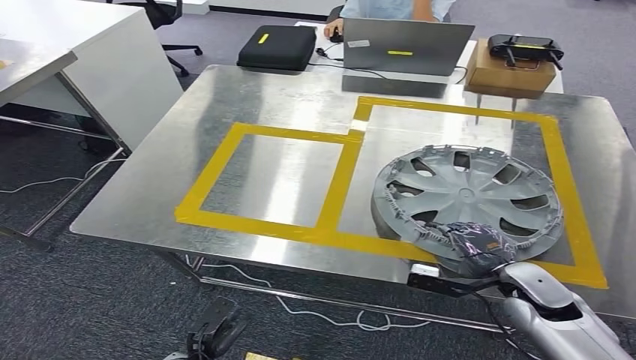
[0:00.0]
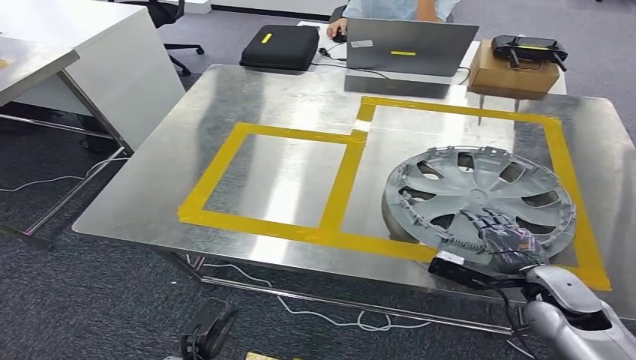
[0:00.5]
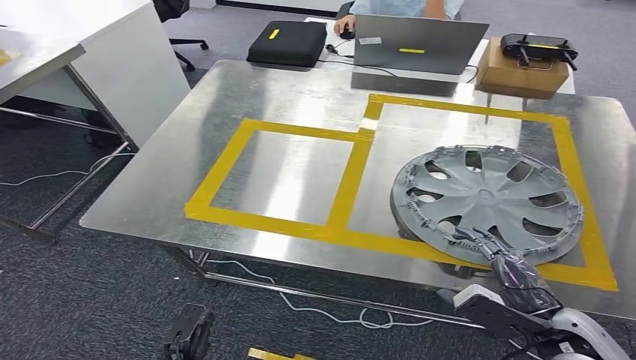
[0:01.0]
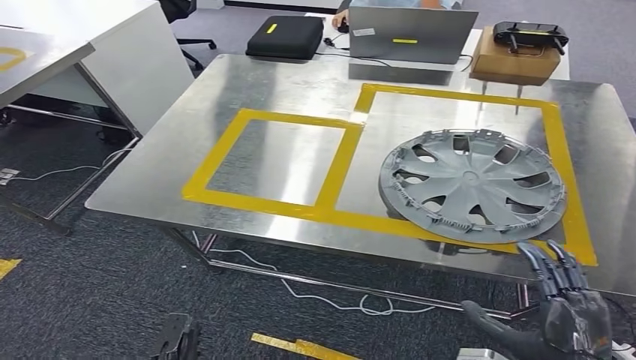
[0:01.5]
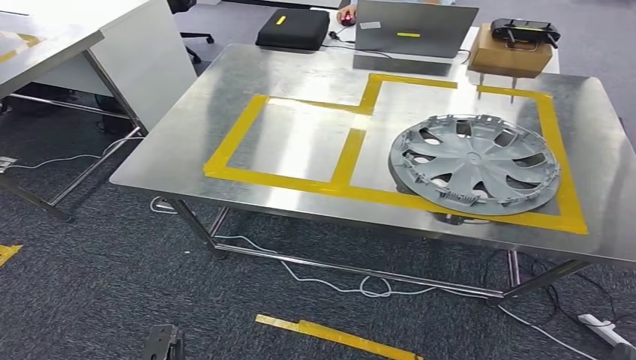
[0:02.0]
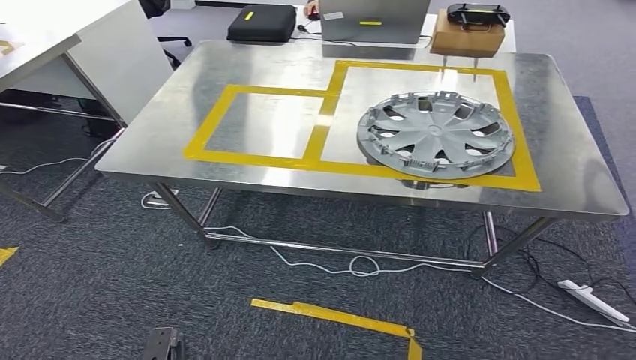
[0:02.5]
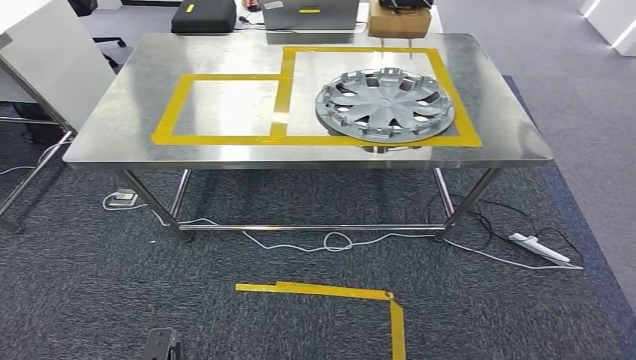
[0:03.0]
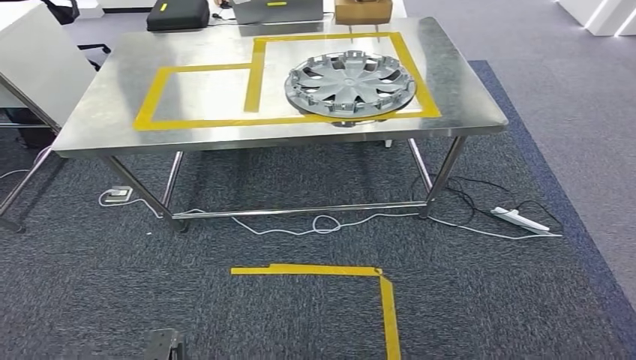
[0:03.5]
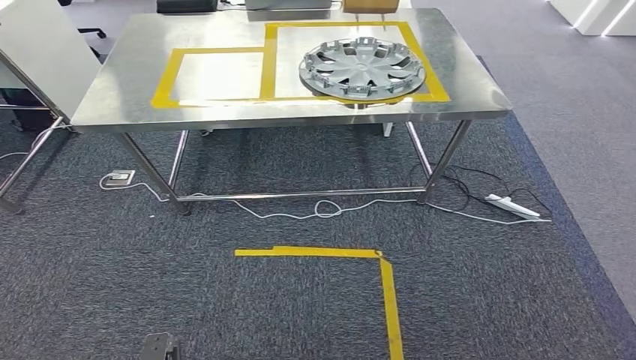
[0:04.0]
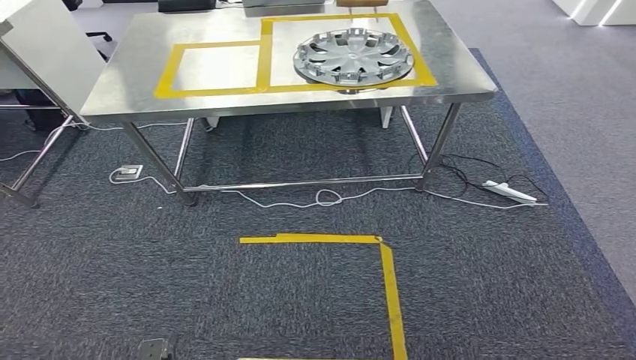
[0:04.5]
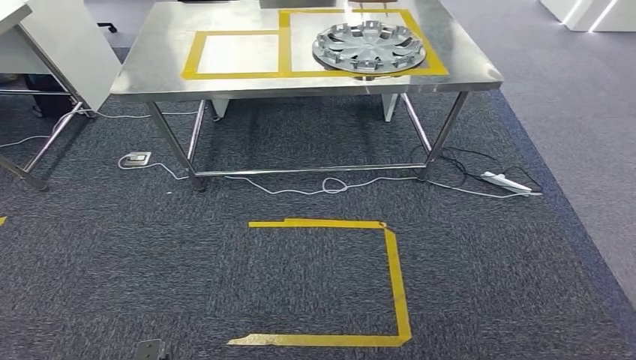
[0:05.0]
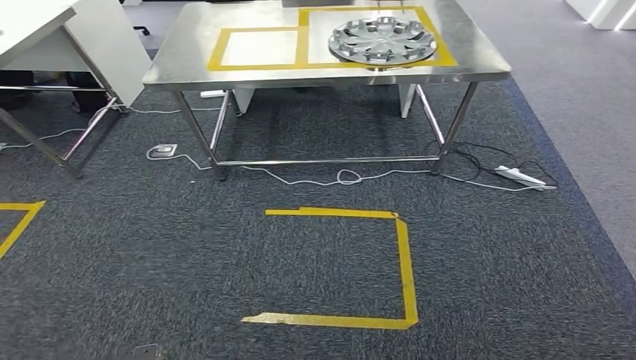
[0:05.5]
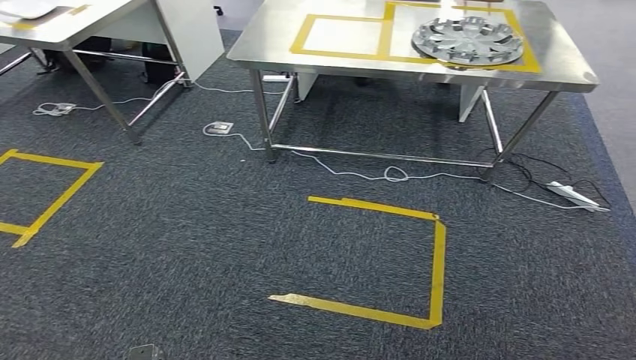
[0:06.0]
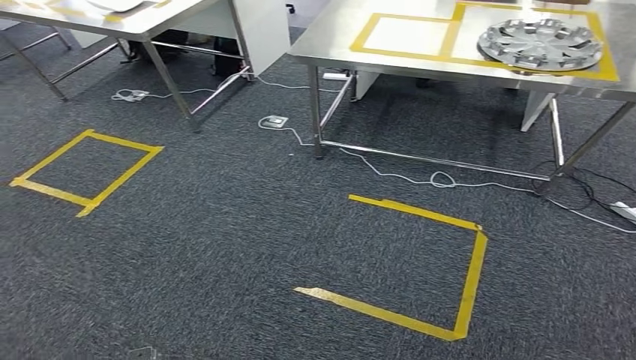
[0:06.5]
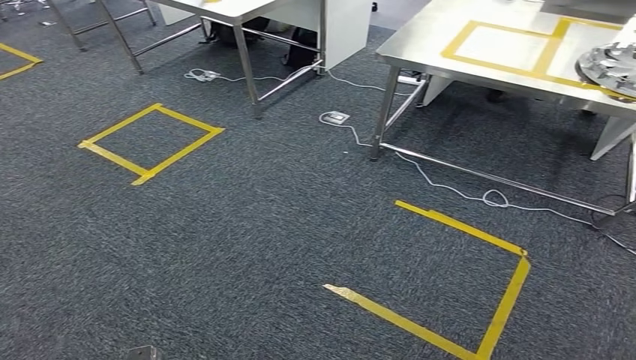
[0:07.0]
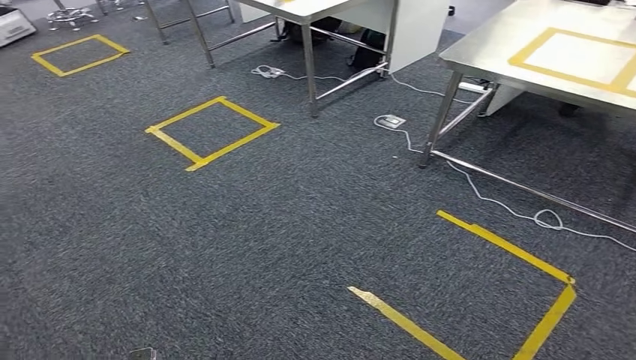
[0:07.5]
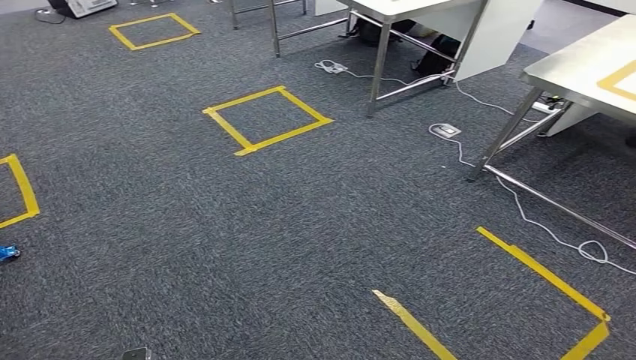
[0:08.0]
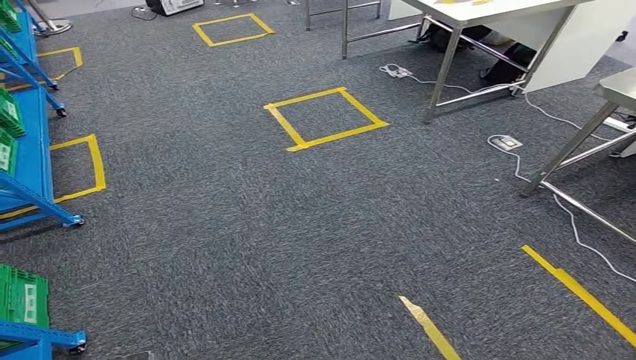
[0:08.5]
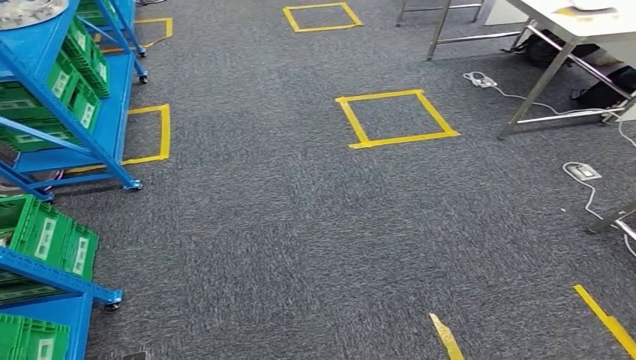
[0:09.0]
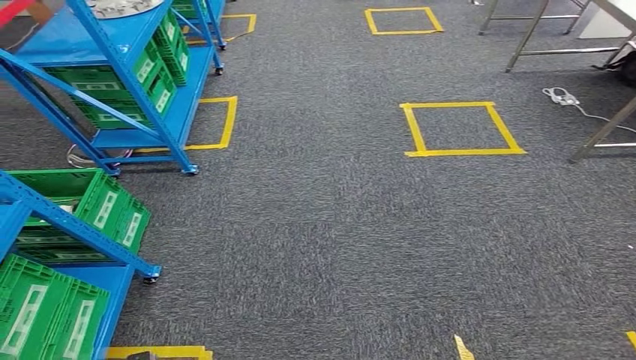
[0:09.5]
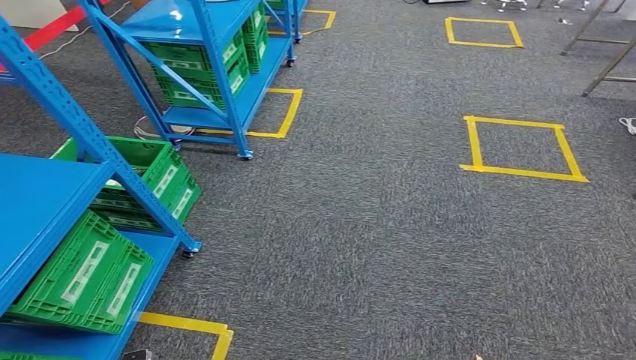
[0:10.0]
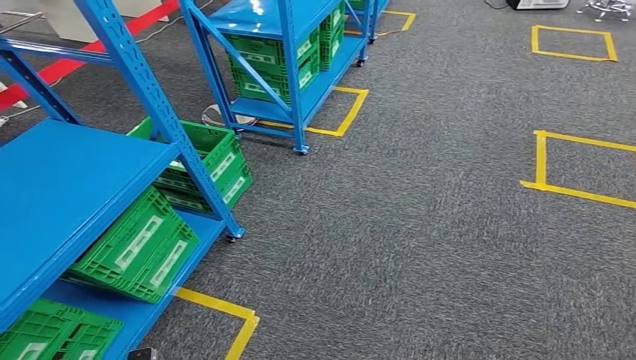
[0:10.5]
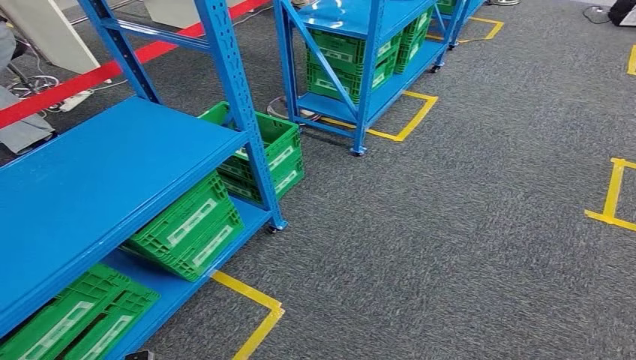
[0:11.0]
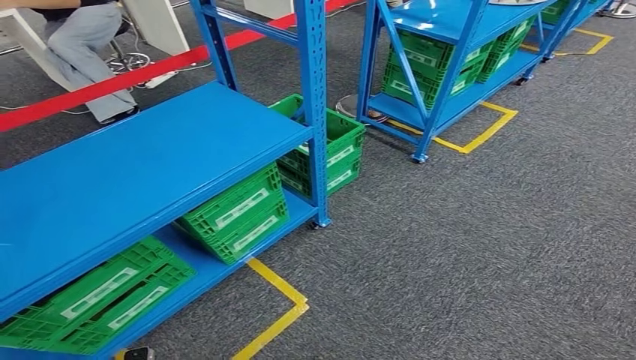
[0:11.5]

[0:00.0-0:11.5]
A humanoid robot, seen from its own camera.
Step, 0:00.0 to 0:04.0: Insert the small component into the corresponding slot on the workbench.

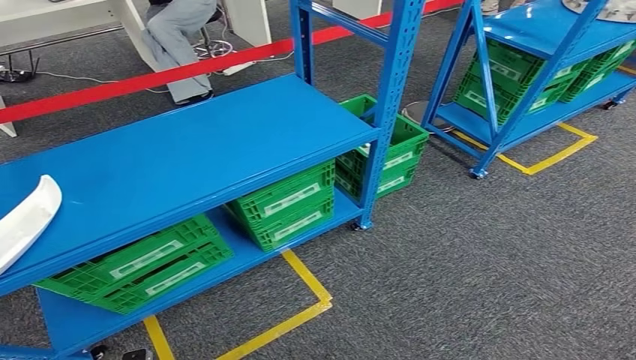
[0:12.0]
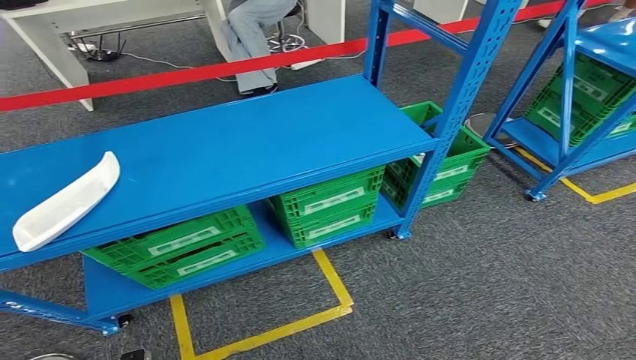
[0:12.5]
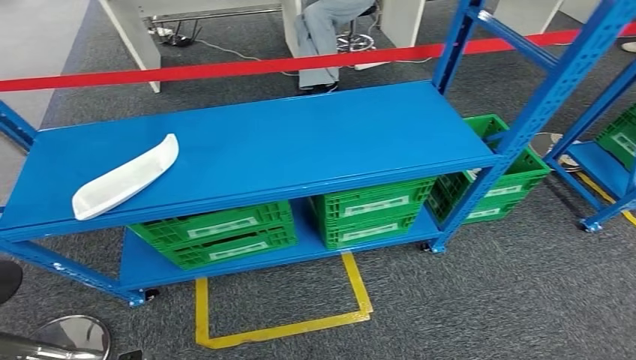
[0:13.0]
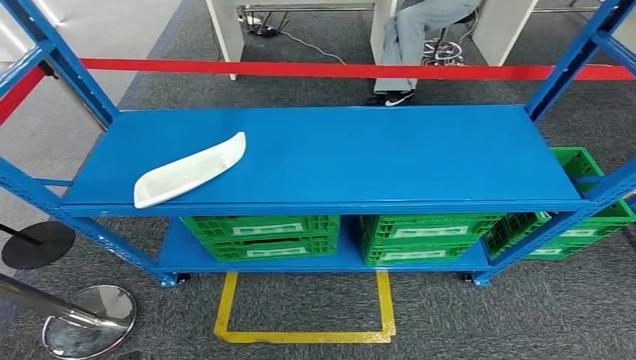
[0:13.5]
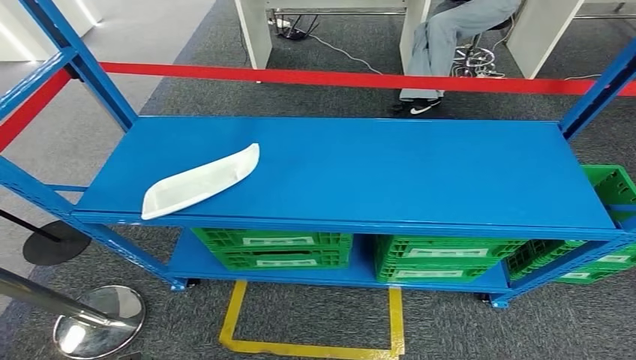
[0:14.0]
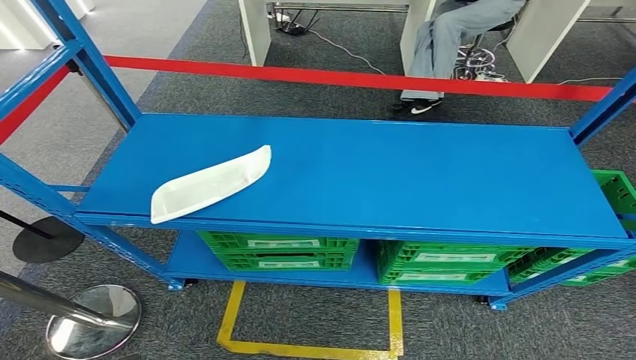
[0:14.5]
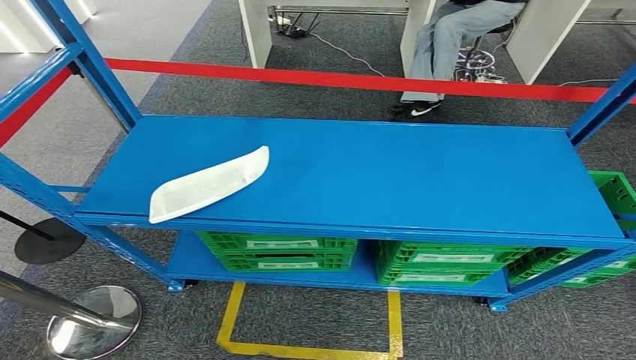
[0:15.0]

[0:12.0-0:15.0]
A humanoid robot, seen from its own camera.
Step, 0:12.0 to 0:15.0: Return to the initial position at the workbench.

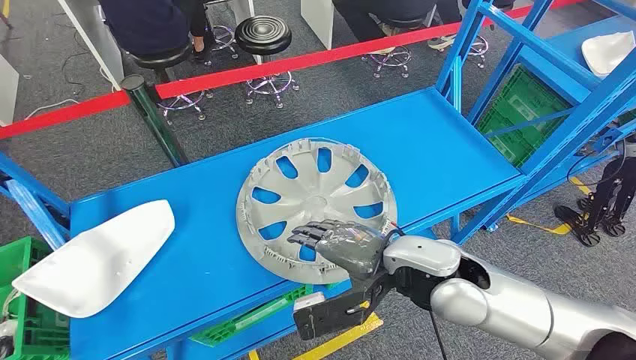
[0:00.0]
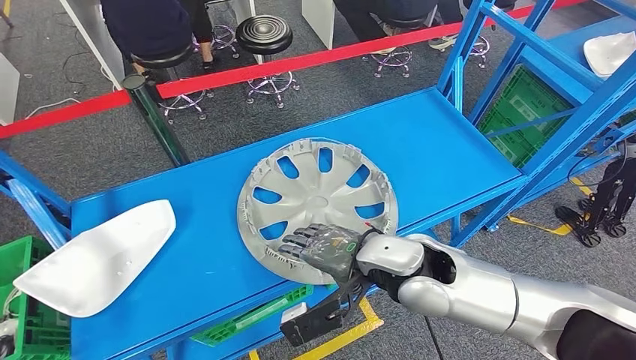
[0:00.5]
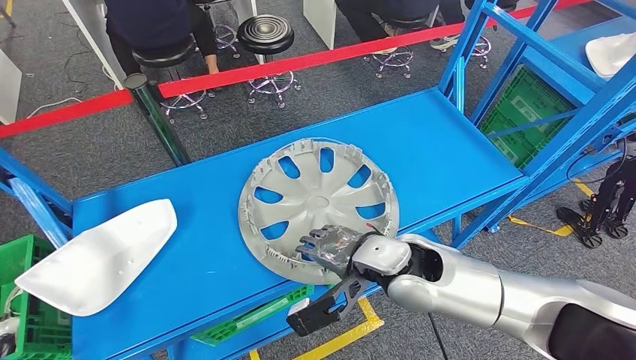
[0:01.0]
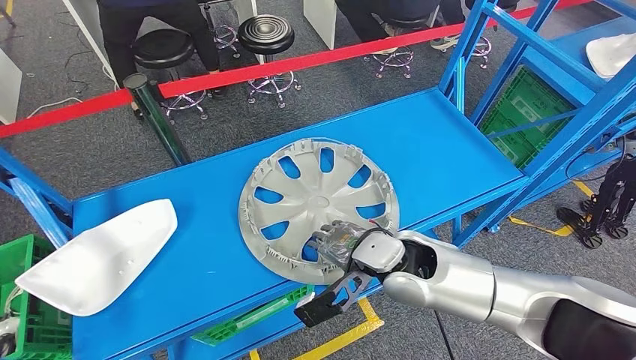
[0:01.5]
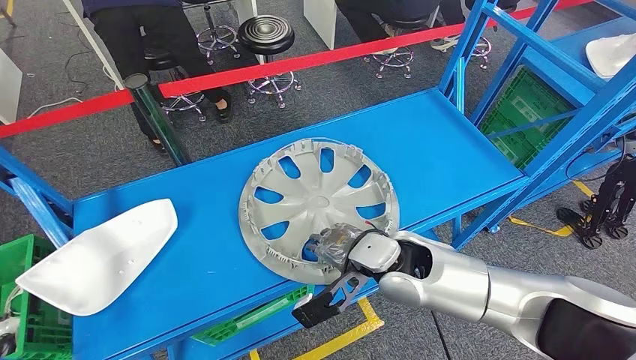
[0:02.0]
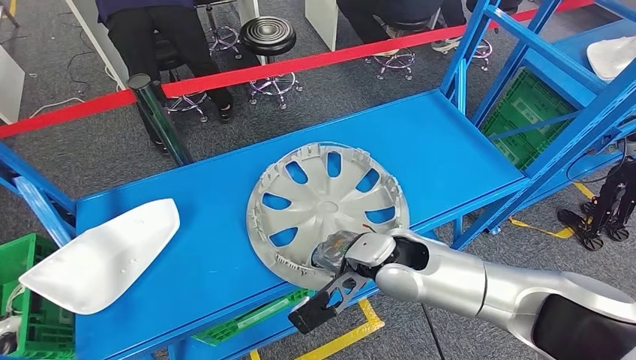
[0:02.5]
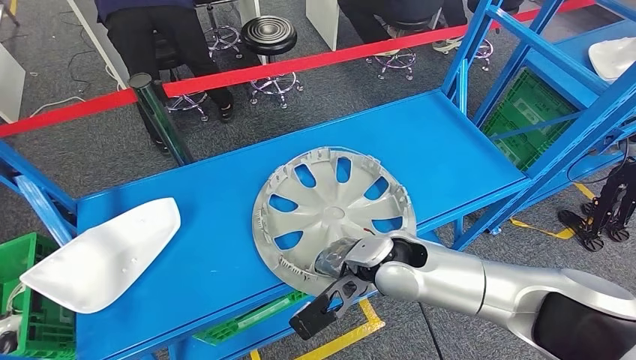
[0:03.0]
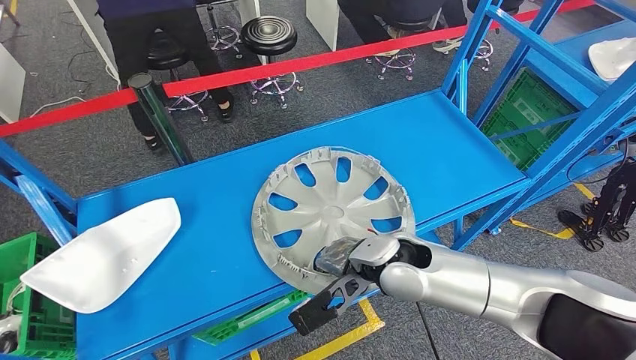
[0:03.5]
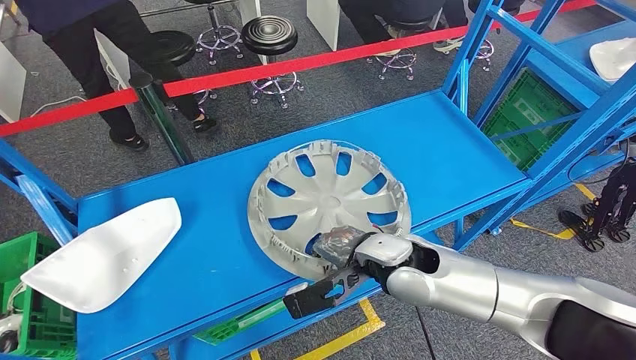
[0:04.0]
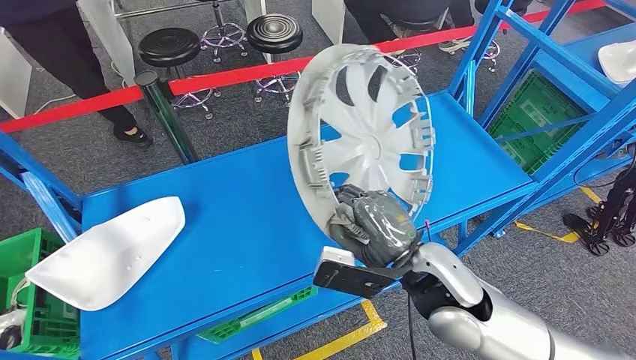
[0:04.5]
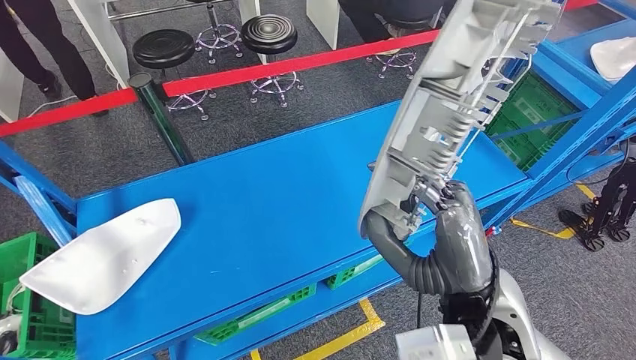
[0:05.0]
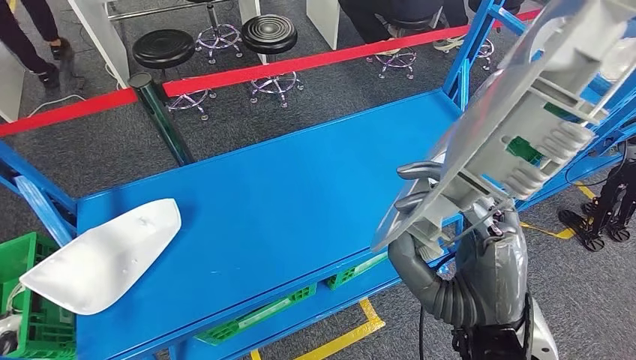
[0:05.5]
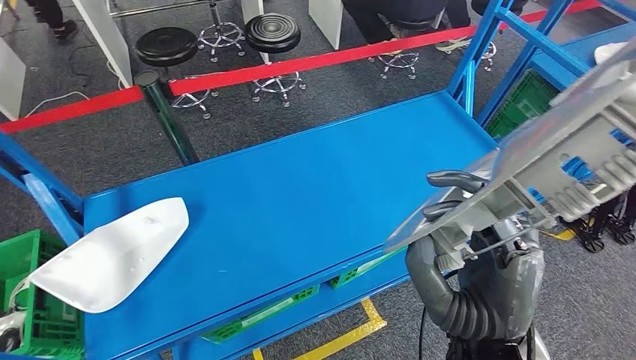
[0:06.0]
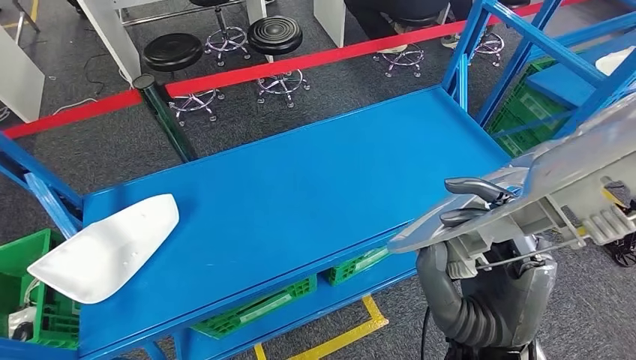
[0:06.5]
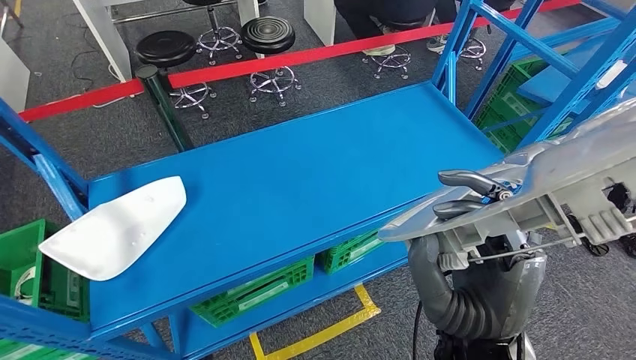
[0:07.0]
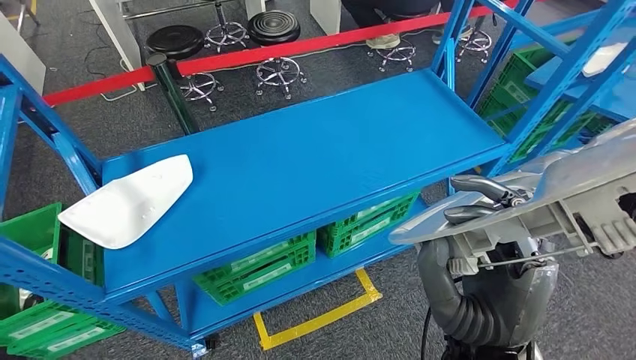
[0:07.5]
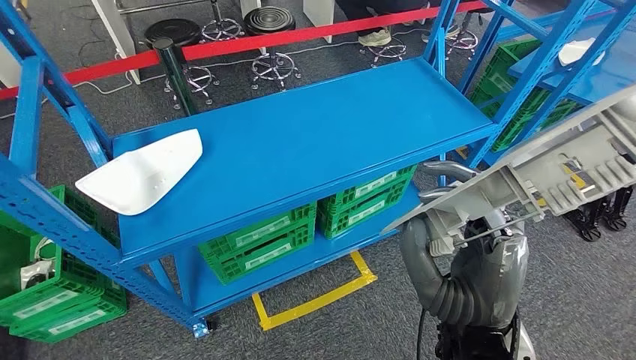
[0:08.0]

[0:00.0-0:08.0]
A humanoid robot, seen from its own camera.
Step, 0:00.0 to 0:06.5: Pick up the small component from the shelf.
